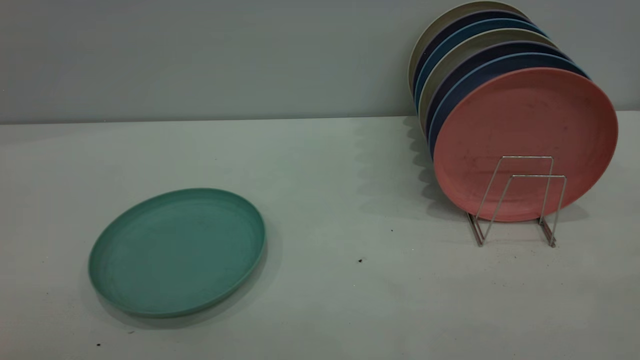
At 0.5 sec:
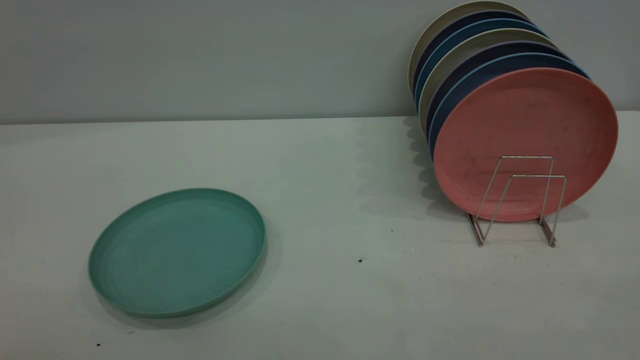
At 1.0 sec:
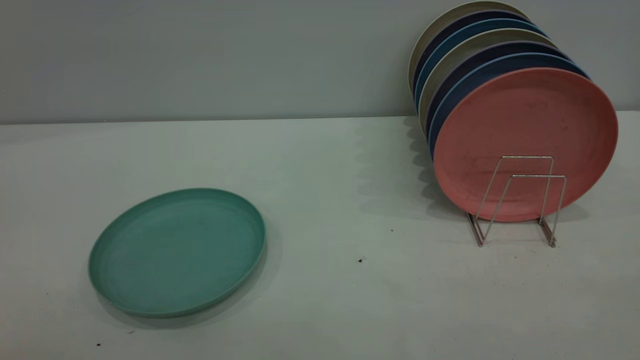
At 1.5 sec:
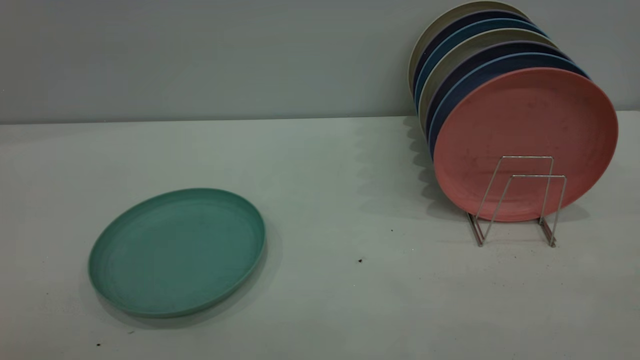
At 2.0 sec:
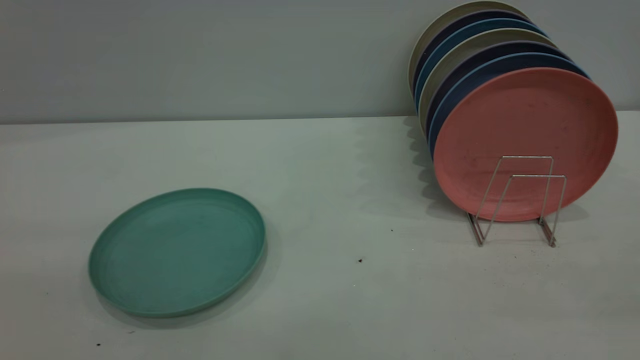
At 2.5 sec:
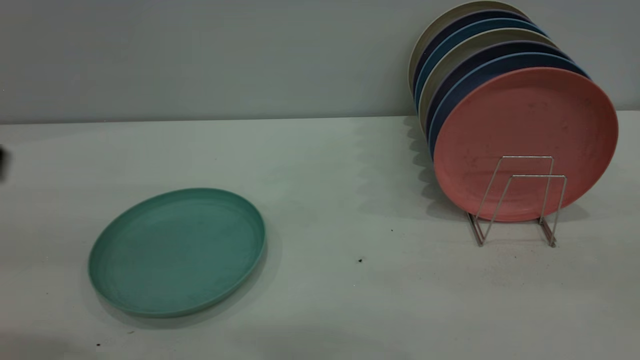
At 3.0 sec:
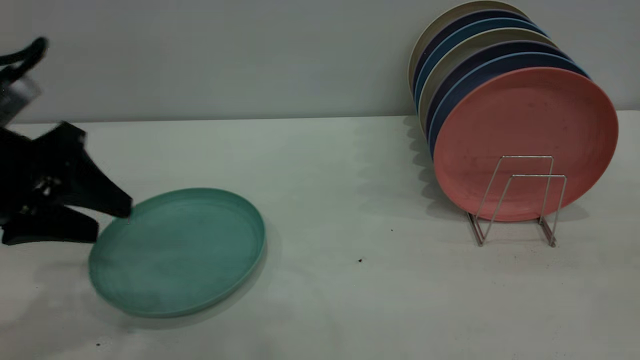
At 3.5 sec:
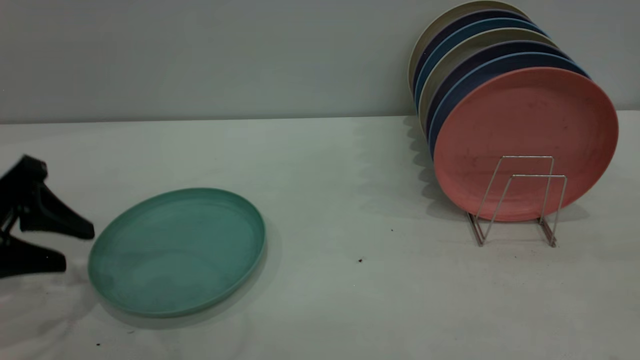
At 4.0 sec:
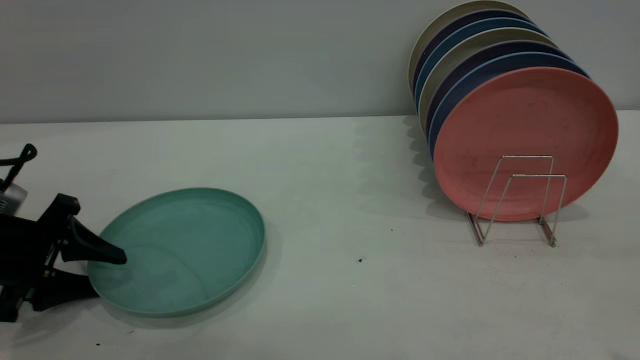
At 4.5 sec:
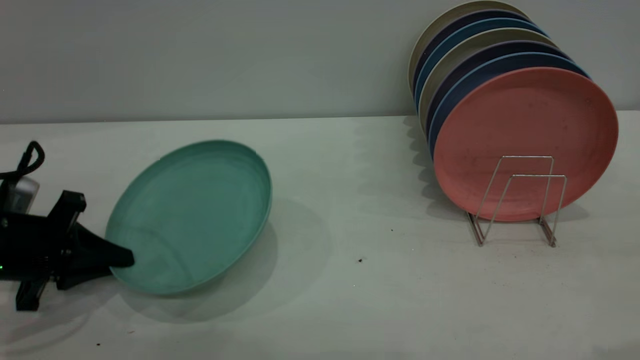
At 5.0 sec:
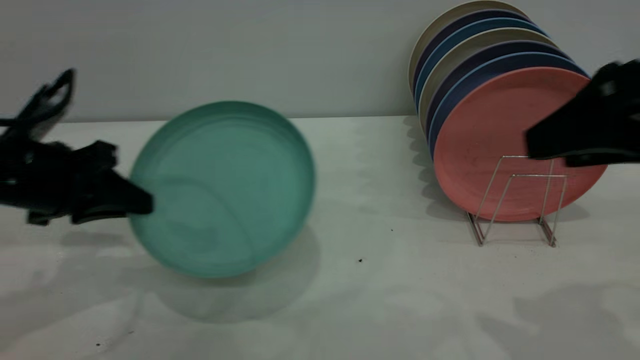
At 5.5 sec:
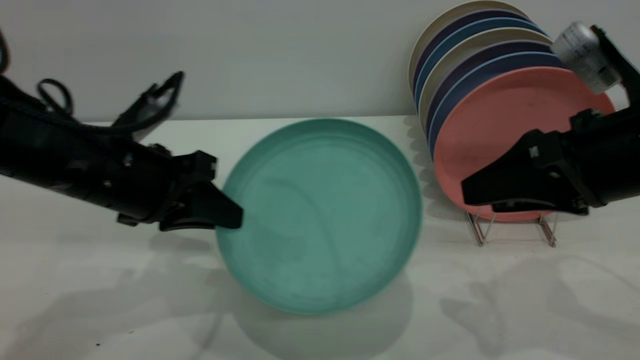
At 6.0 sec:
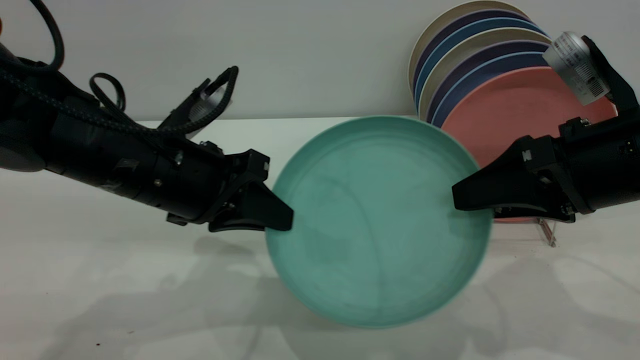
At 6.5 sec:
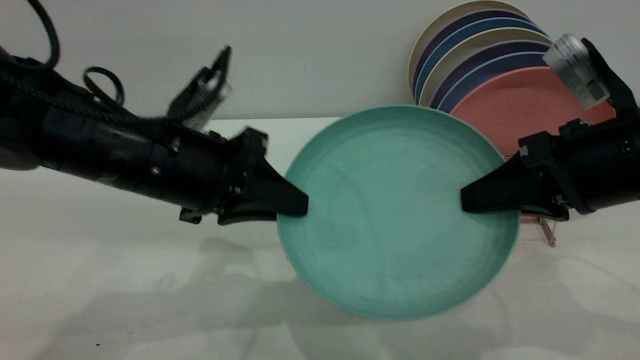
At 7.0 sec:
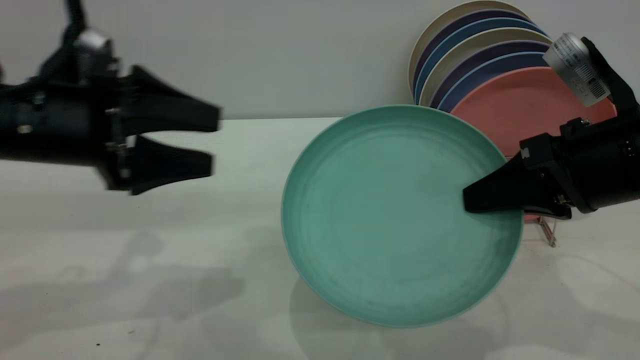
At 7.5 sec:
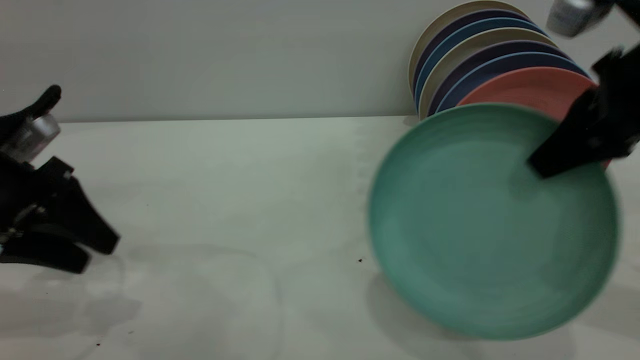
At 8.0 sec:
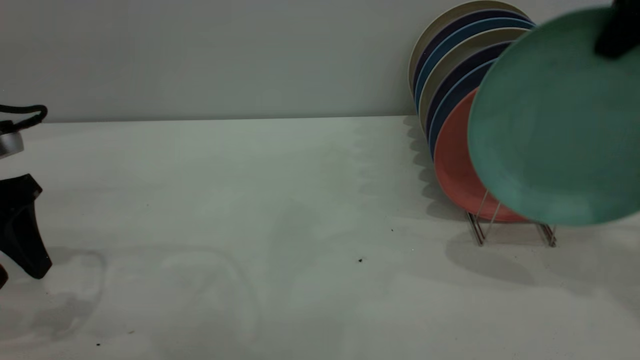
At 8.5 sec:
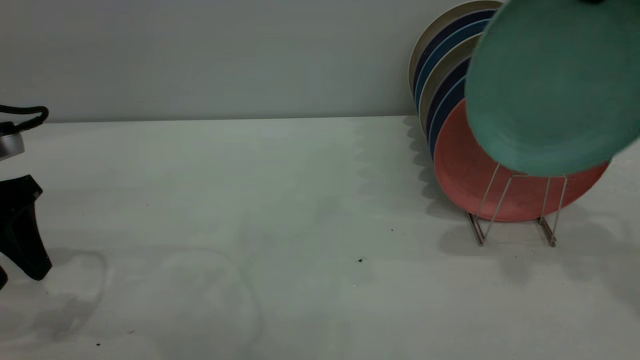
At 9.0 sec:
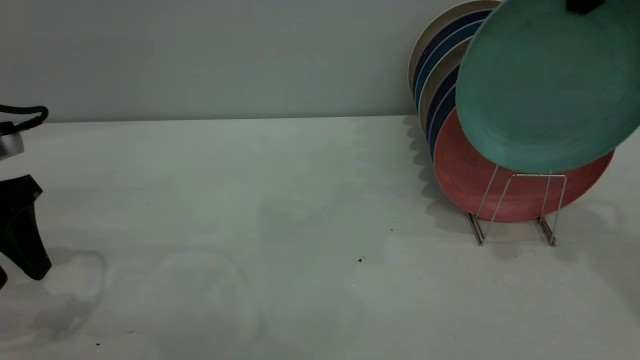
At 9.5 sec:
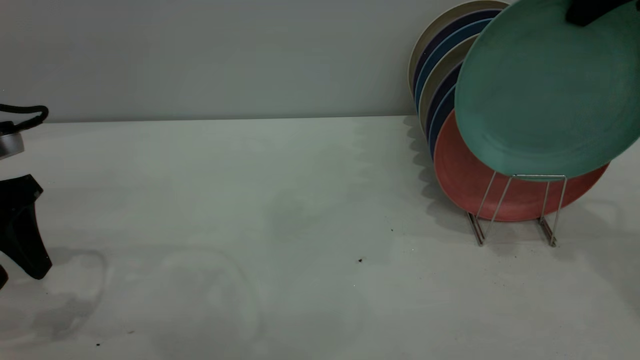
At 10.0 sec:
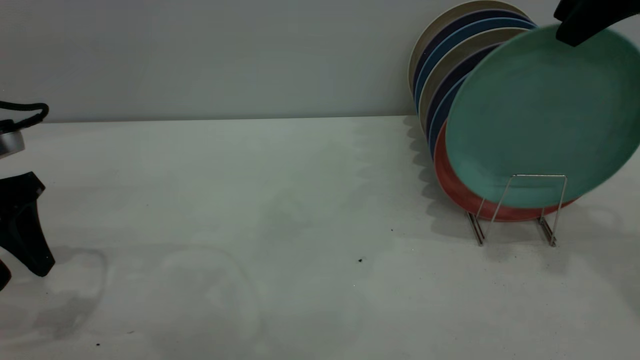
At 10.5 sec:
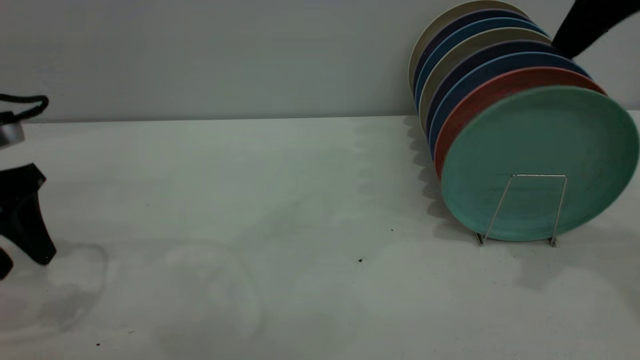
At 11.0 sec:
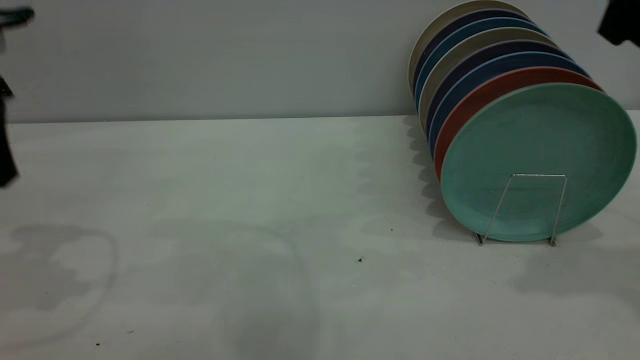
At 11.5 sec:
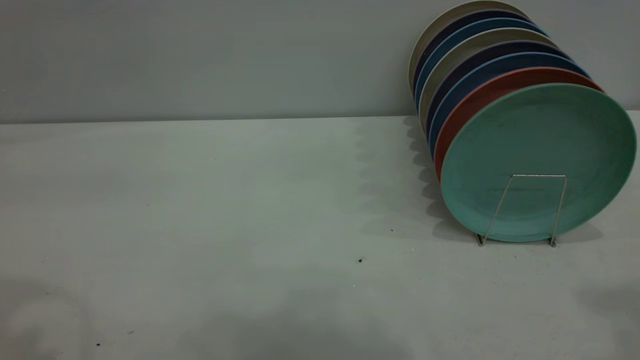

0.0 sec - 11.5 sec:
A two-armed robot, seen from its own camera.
Task of the whole recording: the left gripper grasp the green plate, the left gripper pass the green plate to the right gripper, and the right gripper place the green plate on the plate rack.
Step, 0.0 sec - 4.0 sec: Pick up the plate with the left gripper.
Step, 4.5 sec - 7.0 sec: Pass the plate from the left gripper to the right gripper.
Step, 7.5 sec - 10.5 sec: Place the plate on the shelf.
2.0 sec - 4.0 sec: The left gripper moves downward and forward, roughly 35 cm.
4.0 sec - 6.0 sec: The right gripper is displaced downward and forward by some 20 cm; the left gripper travels to the right and upward by some 20 cm, and closes its fingers.
6.0 sec - 7.5 sec: The right gripper shifts approximately 10 cm upward, and closes; the left gripper travels to the left by some 15 cm, and opens its fingers.
7.5 sec - 9.5 sec: The right gripper goes about 10 cm upward and forward.
9.5 sec - 11.5 sec: The left gripper goes some 25 cm upward, while the right gripper heads backward and upward, covering about 25 cm, and opens.
